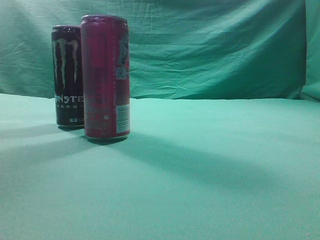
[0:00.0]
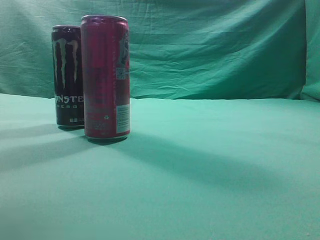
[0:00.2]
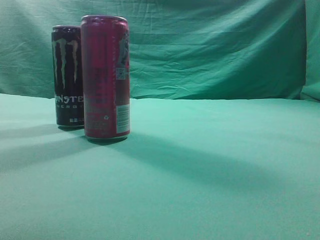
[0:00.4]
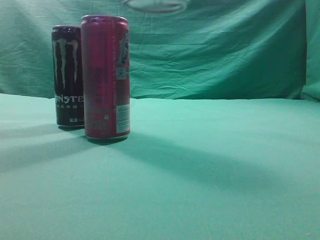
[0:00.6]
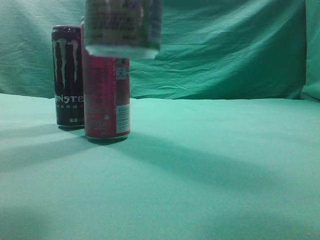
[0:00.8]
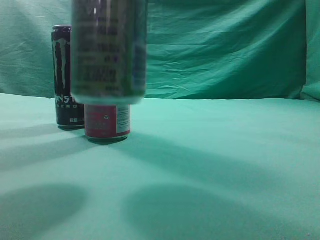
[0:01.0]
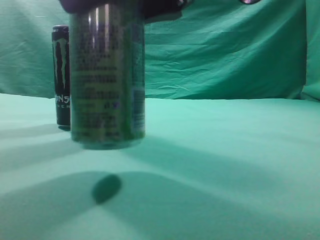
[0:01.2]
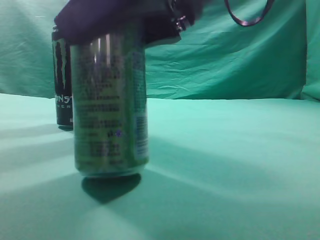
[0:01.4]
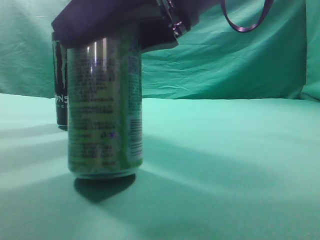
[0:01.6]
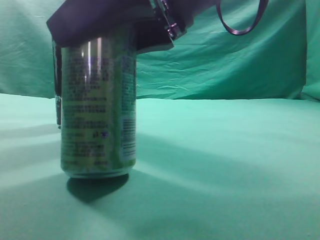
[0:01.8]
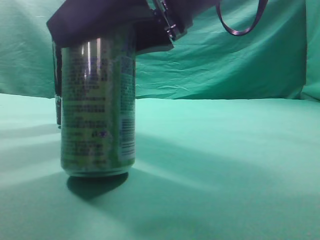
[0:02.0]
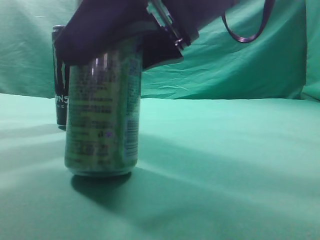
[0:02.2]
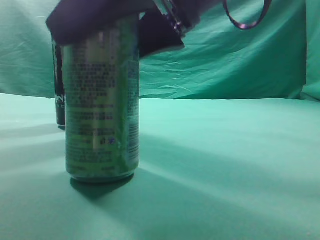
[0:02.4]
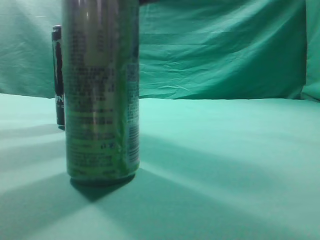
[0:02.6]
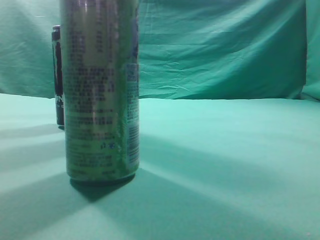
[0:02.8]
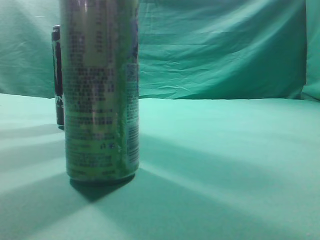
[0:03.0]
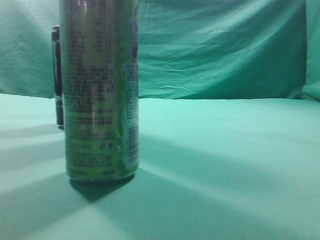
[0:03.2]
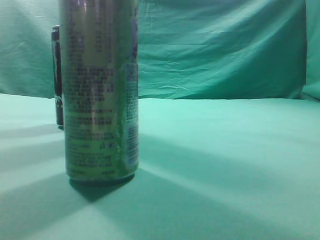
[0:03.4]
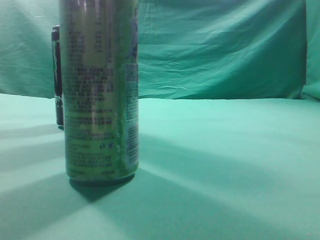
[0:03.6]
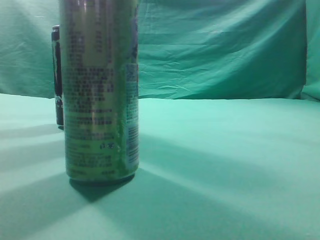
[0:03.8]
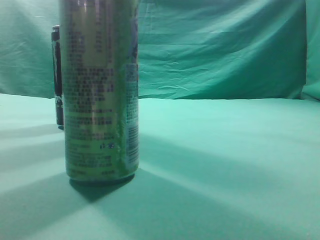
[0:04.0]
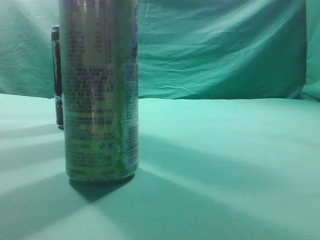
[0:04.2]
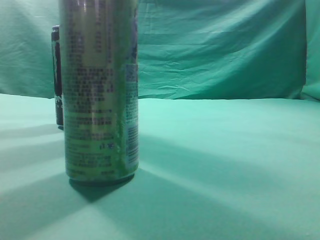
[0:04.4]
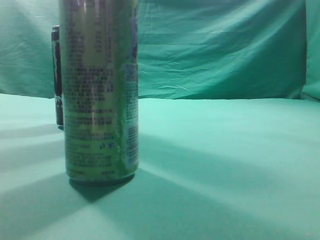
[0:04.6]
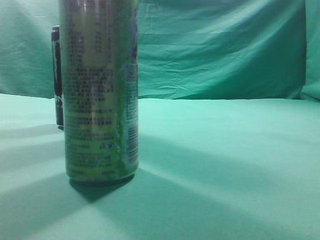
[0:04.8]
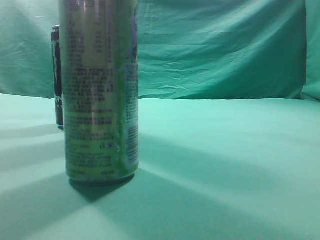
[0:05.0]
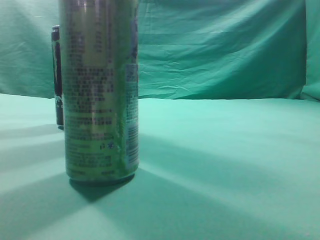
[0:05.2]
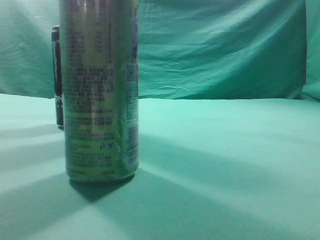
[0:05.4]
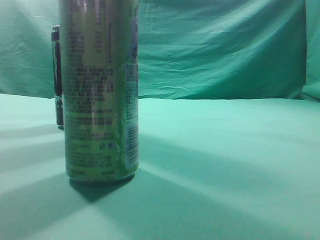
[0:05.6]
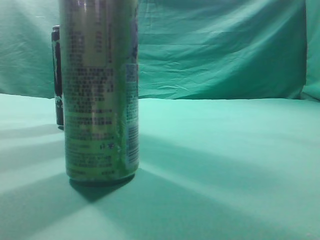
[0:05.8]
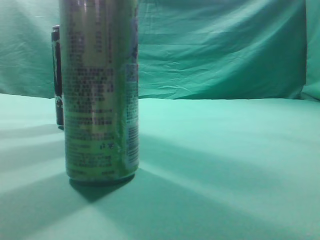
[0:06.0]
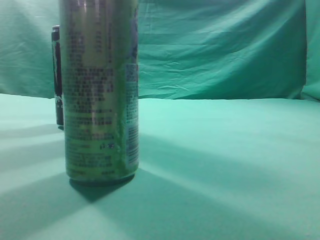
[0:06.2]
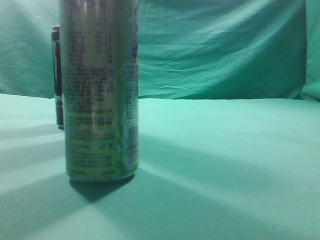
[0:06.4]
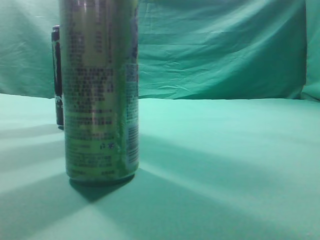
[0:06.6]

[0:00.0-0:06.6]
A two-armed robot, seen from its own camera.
Task of the whole recording: move one drink among three beverages.
Step, 0:00.0 to 0:02.4: Place the beverage bottle to the front of the table.
0:00.0 to 0:01.6: The right gripper travels downward and backward by some 25 cm.
0:01.6 to 0:03.2: The right gripper shifts roughly 20 cm upward and to the right, and closes up.
